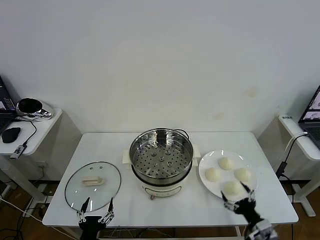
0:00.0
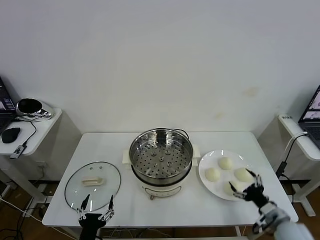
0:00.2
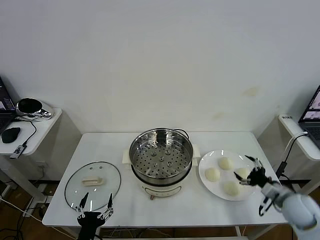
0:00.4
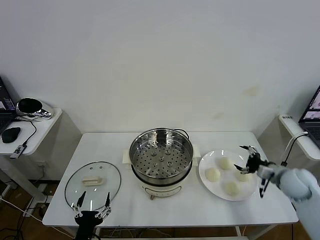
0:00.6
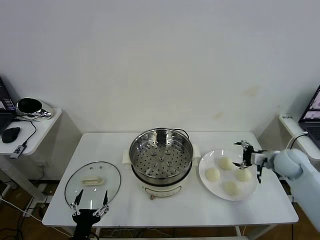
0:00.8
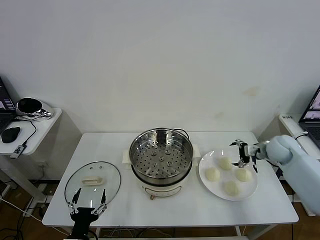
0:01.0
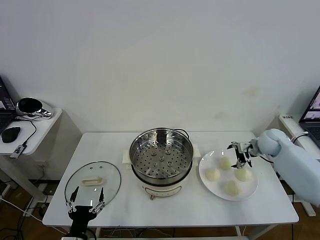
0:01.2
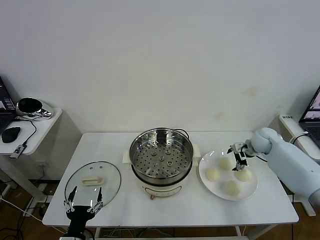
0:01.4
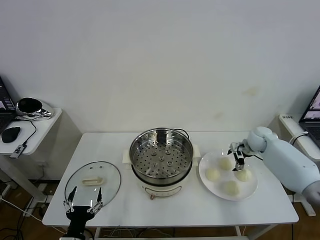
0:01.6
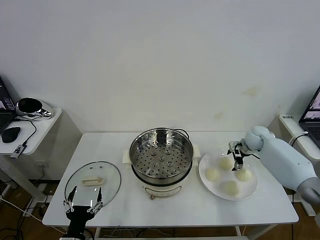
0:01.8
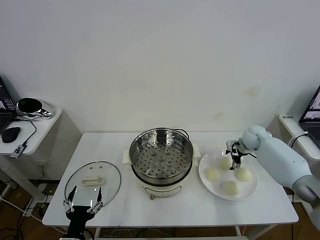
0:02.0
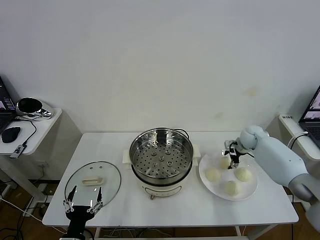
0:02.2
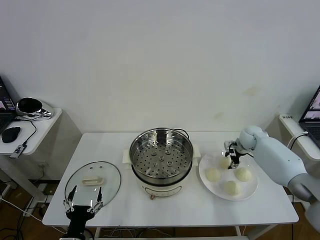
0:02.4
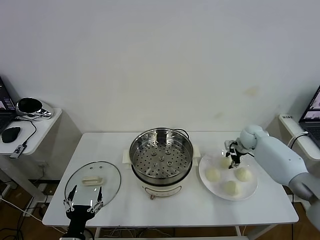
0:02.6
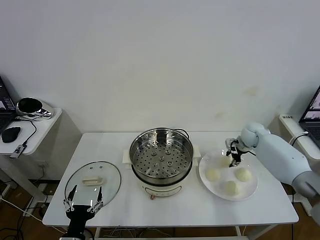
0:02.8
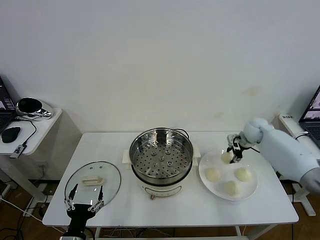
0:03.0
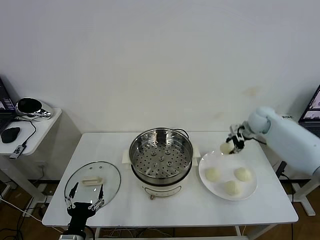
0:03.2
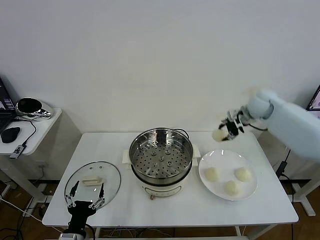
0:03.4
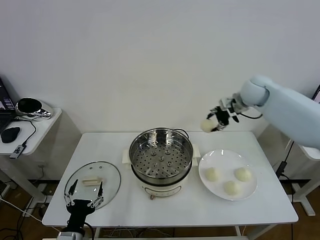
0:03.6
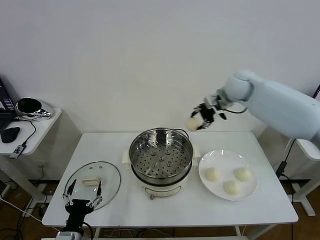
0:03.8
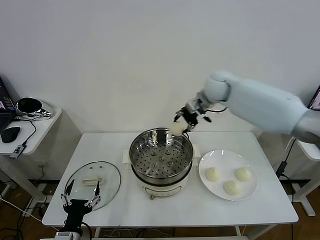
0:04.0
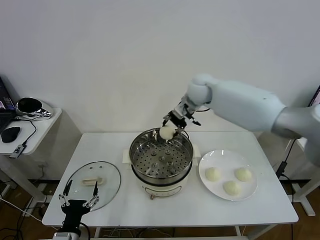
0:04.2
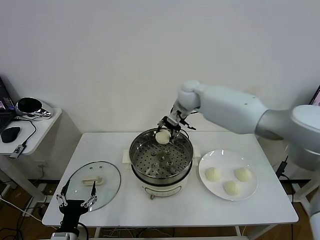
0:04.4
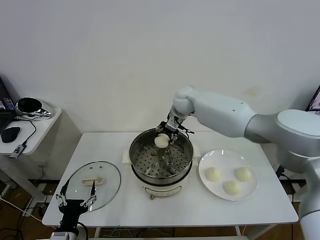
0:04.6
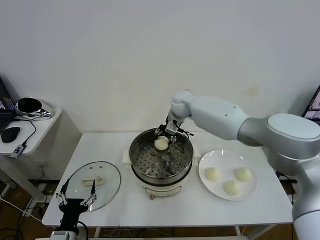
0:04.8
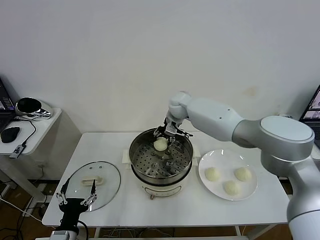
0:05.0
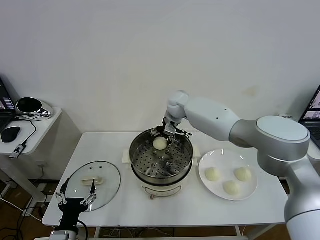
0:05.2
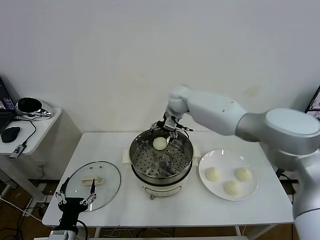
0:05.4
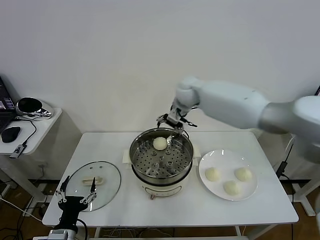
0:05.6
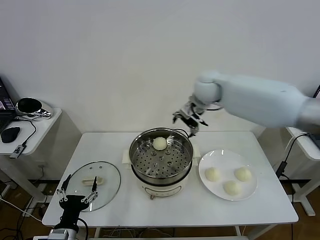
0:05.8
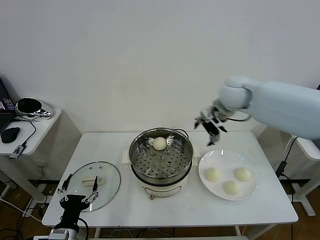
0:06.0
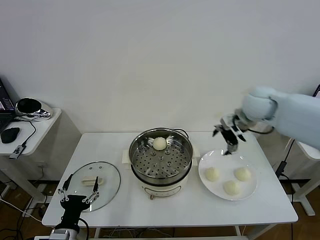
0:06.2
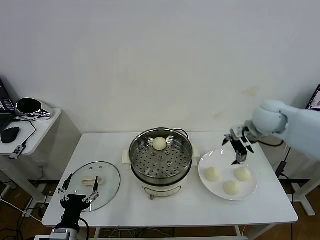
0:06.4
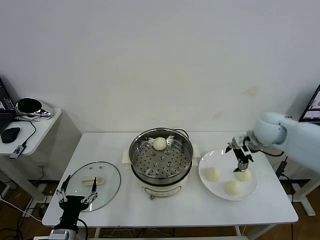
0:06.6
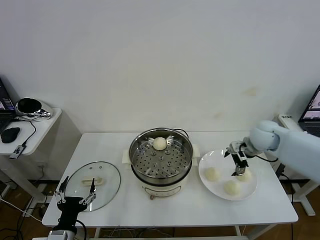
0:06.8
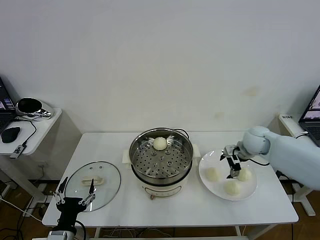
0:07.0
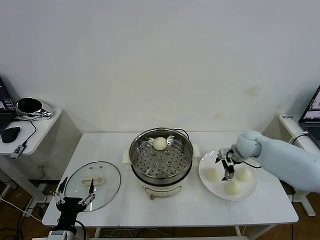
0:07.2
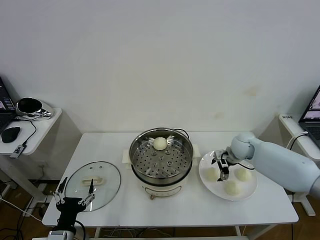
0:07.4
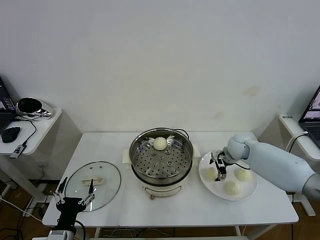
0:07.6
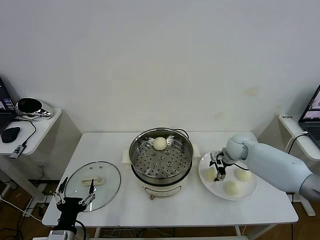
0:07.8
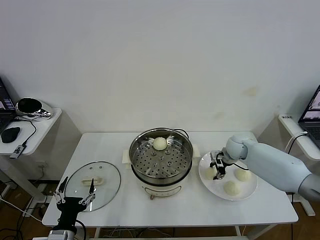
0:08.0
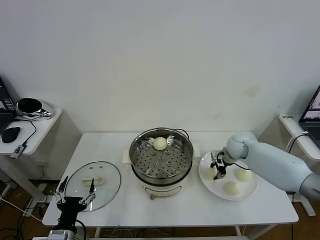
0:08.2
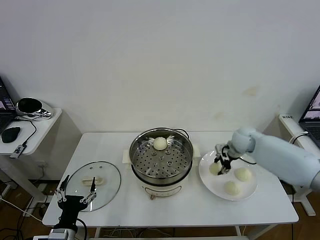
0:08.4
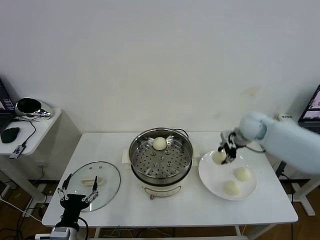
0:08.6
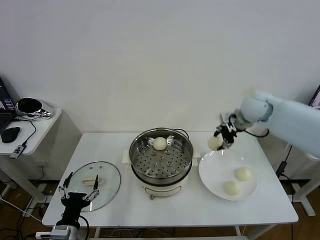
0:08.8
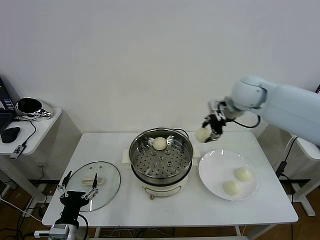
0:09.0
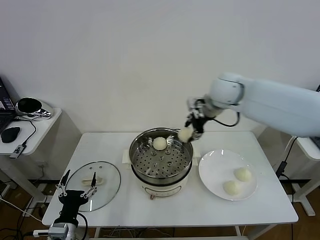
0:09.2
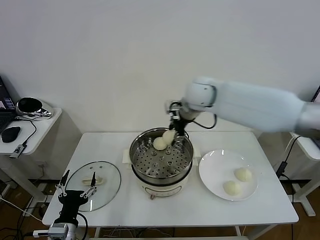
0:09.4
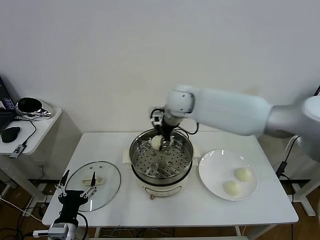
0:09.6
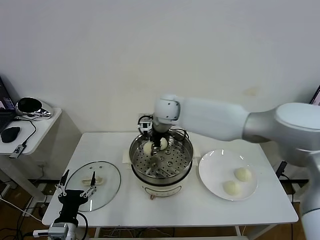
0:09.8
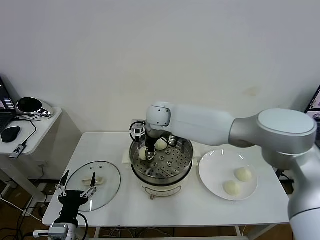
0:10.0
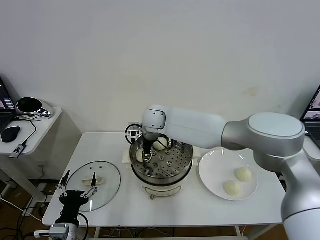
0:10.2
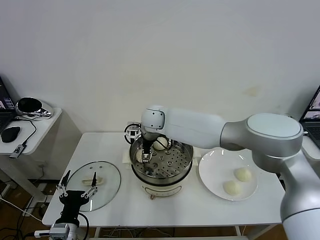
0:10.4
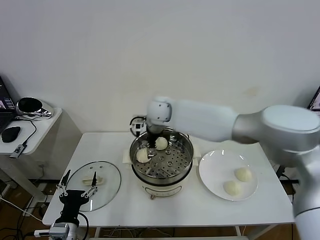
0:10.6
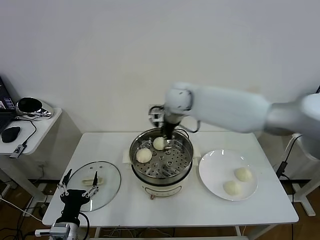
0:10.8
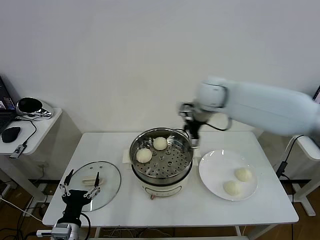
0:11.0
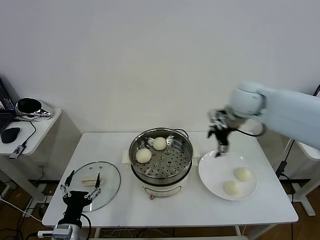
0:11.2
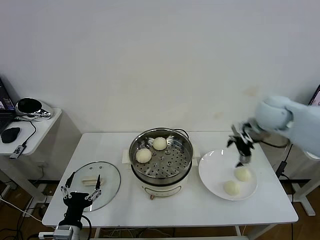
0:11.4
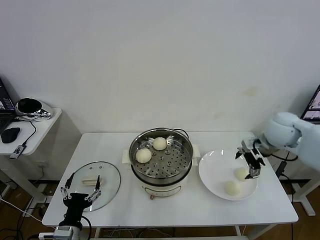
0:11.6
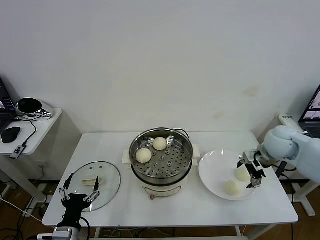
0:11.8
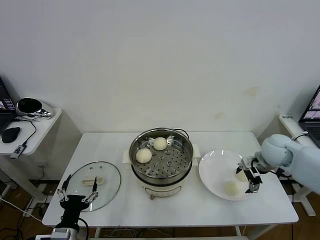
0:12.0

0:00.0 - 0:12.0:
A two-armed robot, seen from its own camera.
Task of the whole recording: take steamed baozi put them in steamer then cover it.
Step, 0:00.0 - 0:02.4: Grasp the baozi in the plate with right gripper.
Step, 0:02.6 - 0:05.4: Place the baozi on the steamer with right gripper.
Step, 0:05.6 - 0:08.0: Grasp the baozi in the plate with right gripper.
Step, 0:08.2 - 0:10.6: Place the baozi on the steamer with right gripper.
0:01.6 - 0:03.0: The right gripper shifts about 5 cm upward, and closes.
0:03.0 - 0:04.4: The right gripper goes roughly 30 cm to the left.
0:04.4 - 0:06.0: The right gripper heads to the right and backward, covering approximately 20 cm, and opens up.
0:06.0 - 0:07.6: The right gripper travels downward by about 25 cm.
0:07.6 - 0:09.0: The right gripper is displaced upward by approximately 25 cm, and closes its fingers.
0:09.0 - 0:10.4: The right gripper goes about 25 cm to the left and downward, and opens up.
0:10.4 - 0:12.0: The right gripper travels to the right by roughly 40 cm.

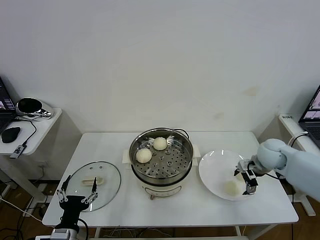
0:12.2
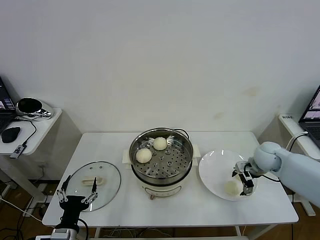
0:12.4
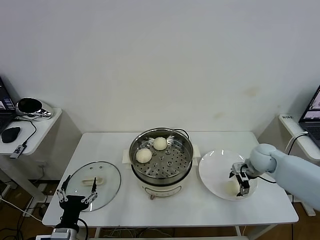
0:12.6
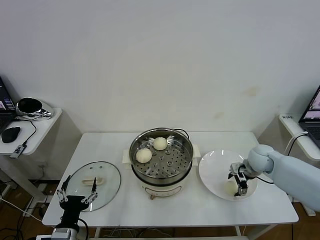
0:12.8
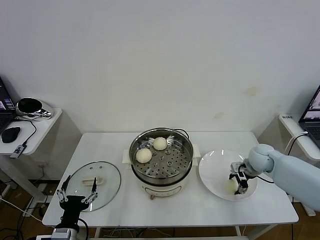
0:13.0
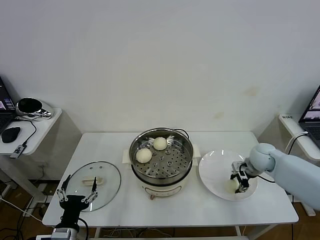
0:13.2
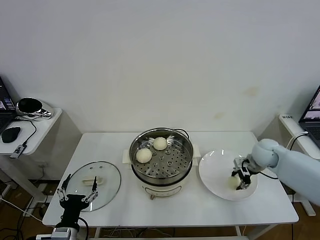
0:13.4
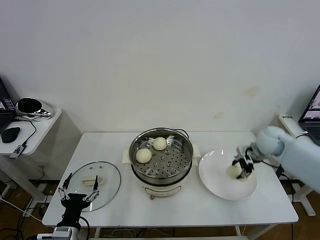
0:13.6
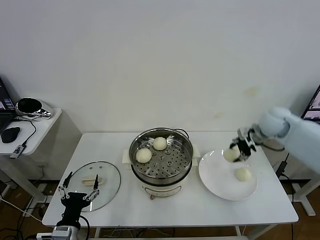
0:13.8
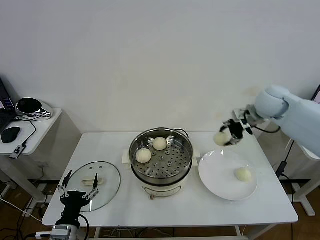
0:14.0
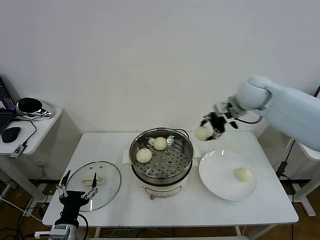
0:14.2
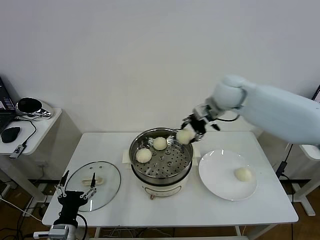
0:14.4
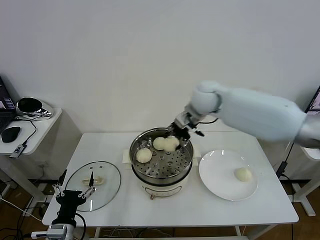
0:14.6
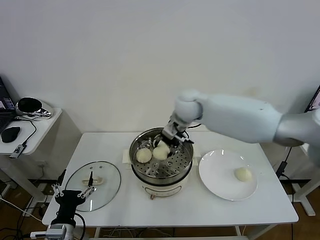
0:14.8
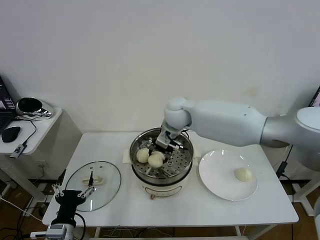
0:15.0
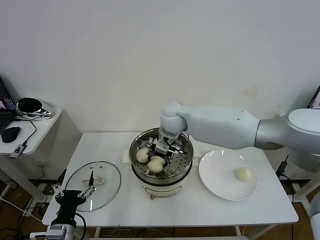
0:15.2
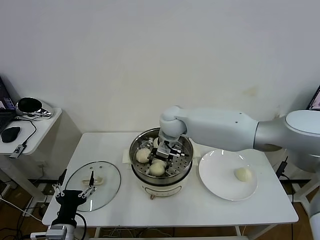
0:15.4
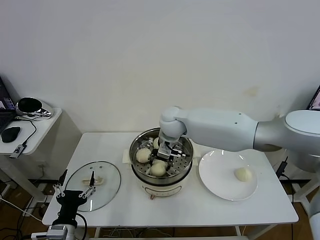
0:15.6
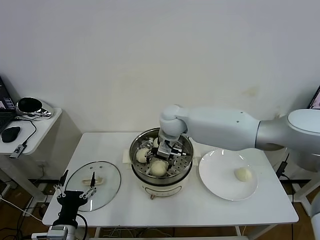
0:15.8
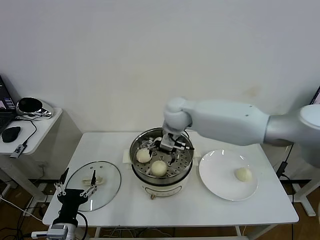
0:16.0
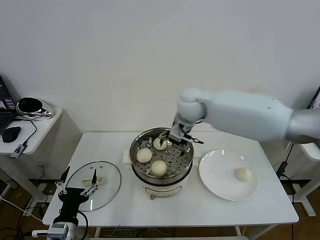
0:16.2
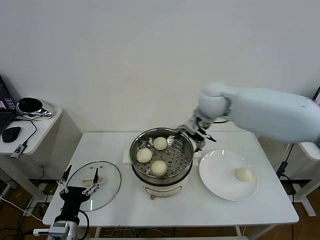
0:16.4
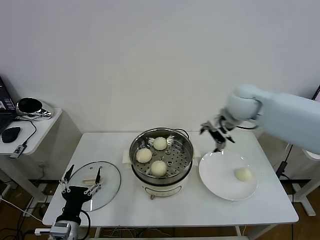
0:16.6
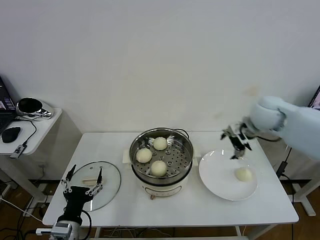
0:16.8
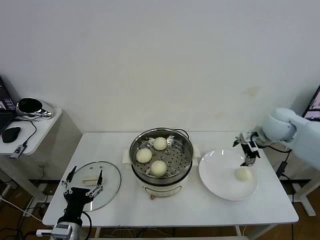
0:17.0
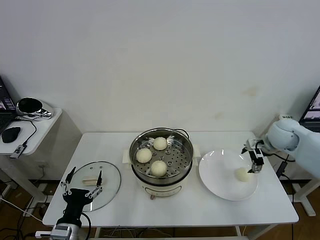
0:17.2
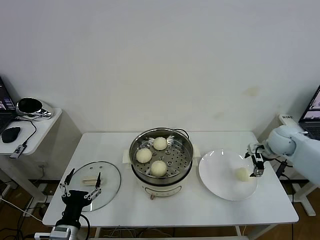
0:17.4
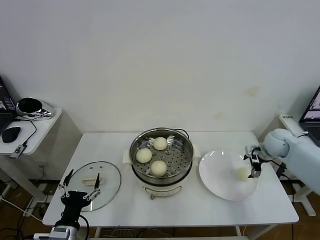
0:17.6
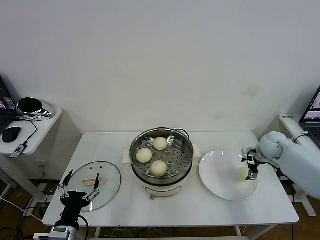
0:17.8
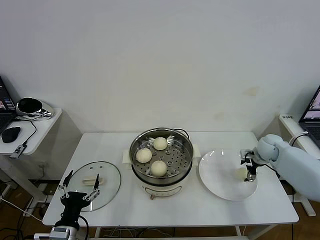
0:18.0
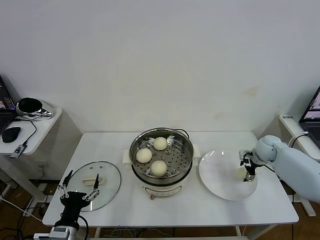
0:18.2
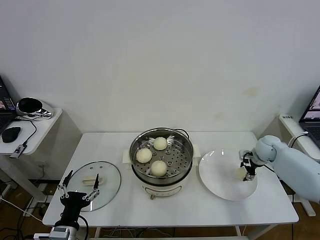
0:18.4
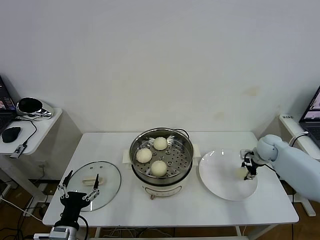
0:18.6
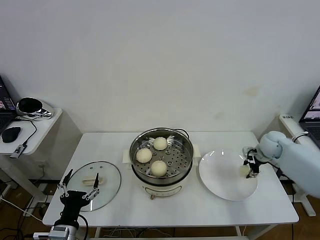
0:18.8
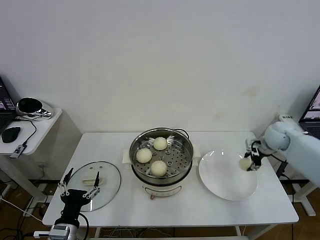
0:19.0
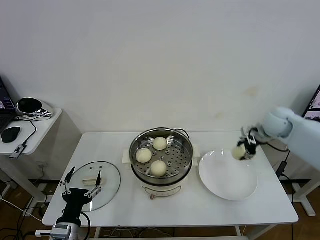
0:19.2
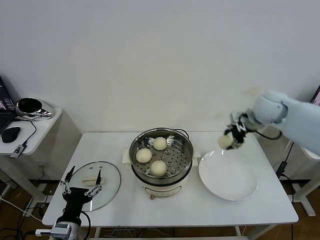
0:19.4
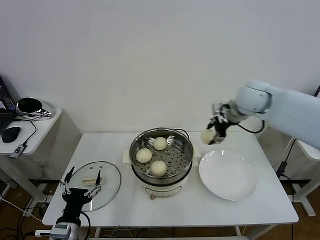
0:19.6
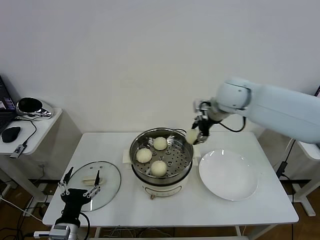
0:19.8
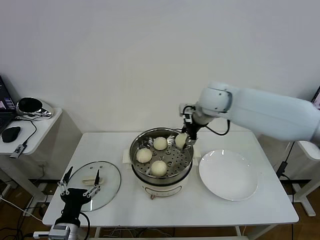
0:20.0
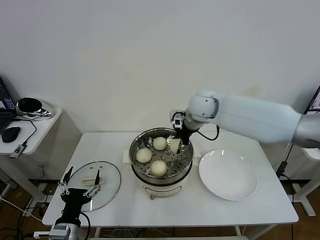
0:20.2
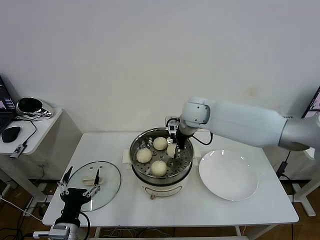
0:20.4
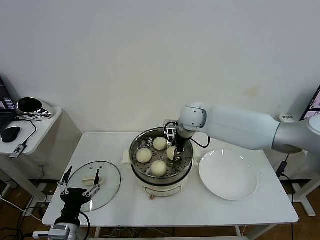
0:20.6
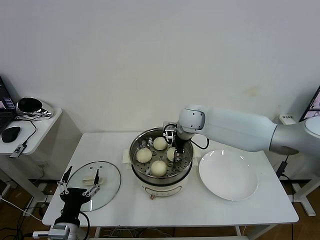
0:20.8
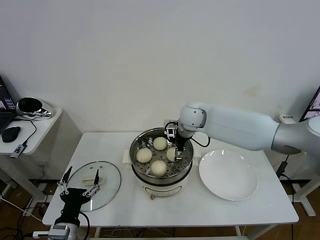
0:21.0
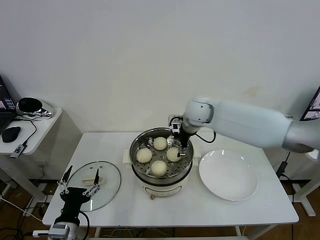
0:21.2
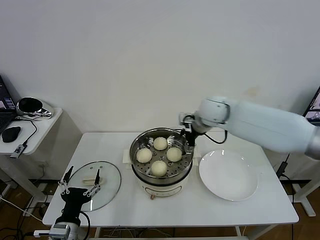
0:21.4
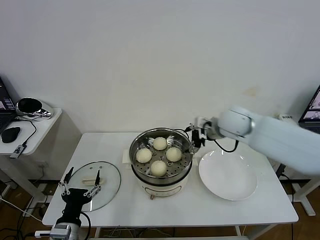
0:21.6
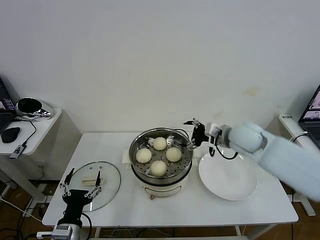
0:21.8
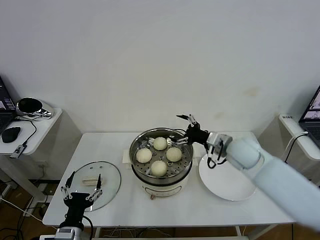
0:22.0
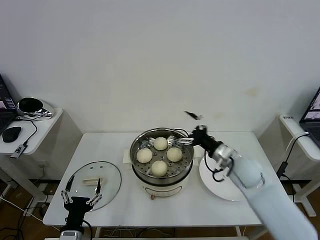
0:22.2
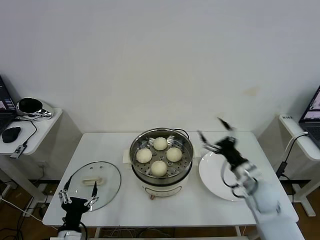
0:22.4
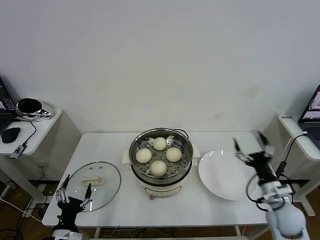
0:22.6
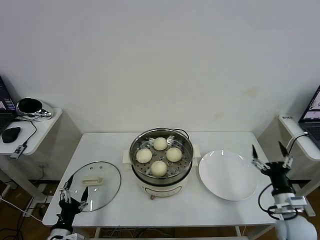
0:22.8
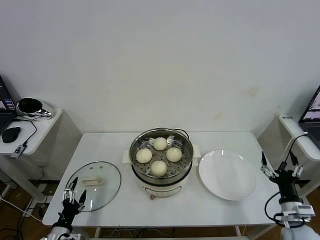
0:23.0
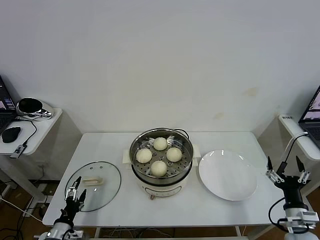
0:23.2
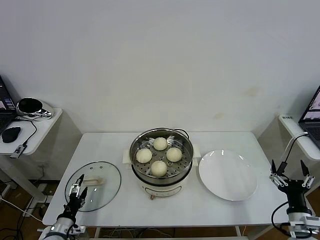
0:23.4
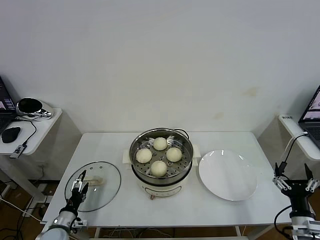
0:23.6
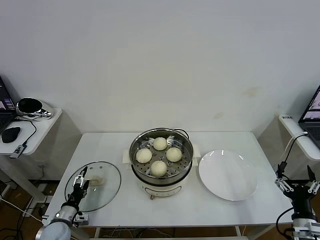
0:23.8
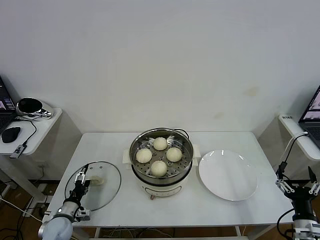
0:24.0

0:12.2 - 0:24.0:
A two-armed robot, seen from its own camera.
Task of the whole recording: take steamed baozi put them in steamer then cover it.
Step, 0:13.2 - 0:15.8: Place the baozi on the steamer with right gripper.
Step, 0:16.0 - 0:18.4: Grasp the baozi in the plate with right gripper.
Step, 0:18.8 - 0:21.2: Place the baozi on the steamer with right gripper.
0:12.2 - 0:13.6: The right gripper travels upward by approximately 5 cm, and closes its fingers.
0:13.6 - 0:15.2: The right gripper moves to the left, roughly 35 cm.
0:15.2 - 0:16.6: The right gripper travels to the right by about 20 cm, and opens its fingers.
0:16.6 - 0:18.2: The right gripper moves downward and to the right, roughly 25 cm.
0:18.2 - 0:19.6: The right gripper heads upward and to the left, covering approximately 30 cm, and closes.
0:19.6 - 0:21.0: The right gripper travels to the left and downward by roughly 15 cm, and opens.
0:21.0 - 0:22.6: The right gripper shifts roughly 40 cm backward, to the right and downward, while the left gripper travels downward by about 5 cm.
0:22.6 - 0:24.0: The right gripper shifts about 10 cm backward and to the right. The left gripper goes about 15 cm forward, downward and to the left.
